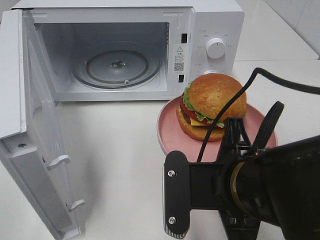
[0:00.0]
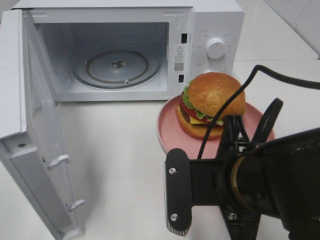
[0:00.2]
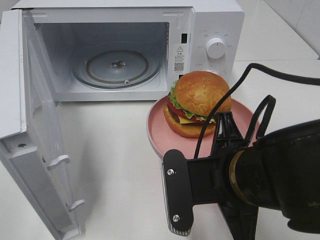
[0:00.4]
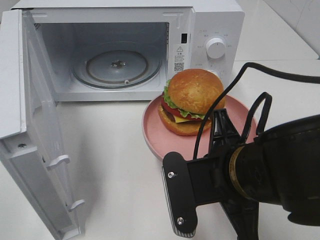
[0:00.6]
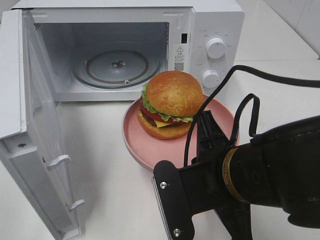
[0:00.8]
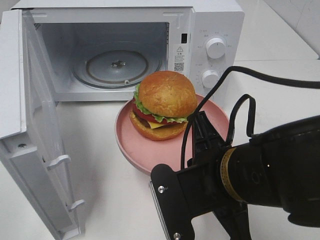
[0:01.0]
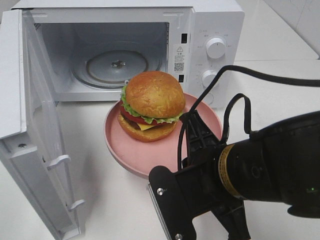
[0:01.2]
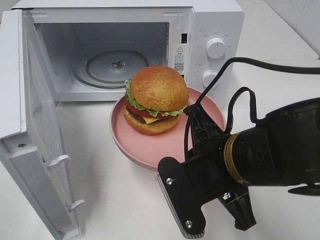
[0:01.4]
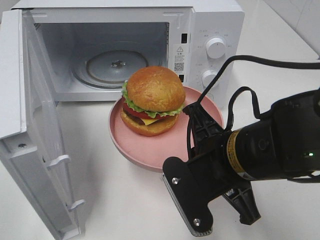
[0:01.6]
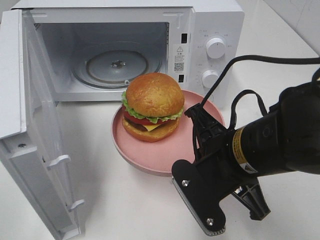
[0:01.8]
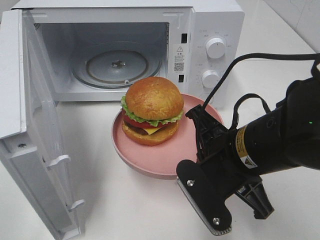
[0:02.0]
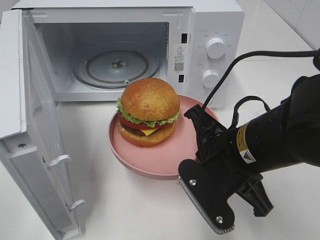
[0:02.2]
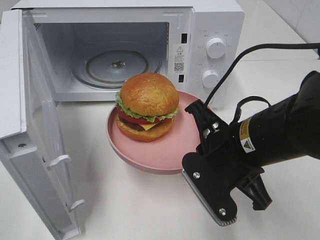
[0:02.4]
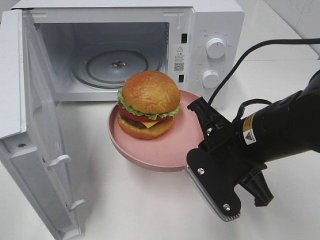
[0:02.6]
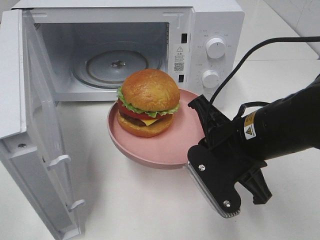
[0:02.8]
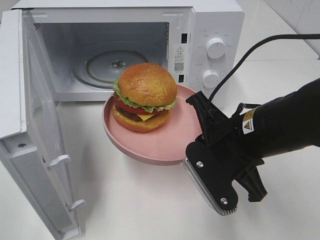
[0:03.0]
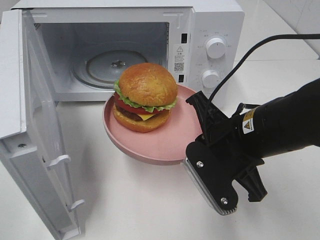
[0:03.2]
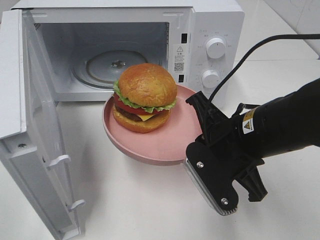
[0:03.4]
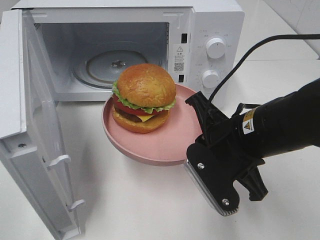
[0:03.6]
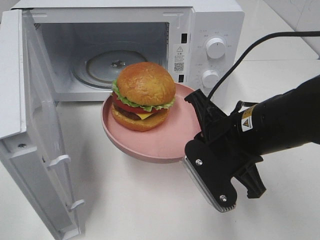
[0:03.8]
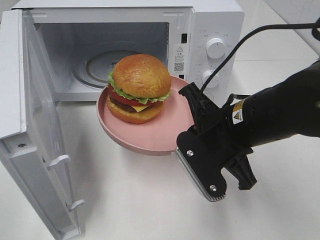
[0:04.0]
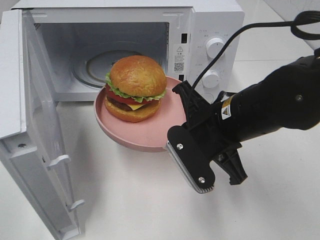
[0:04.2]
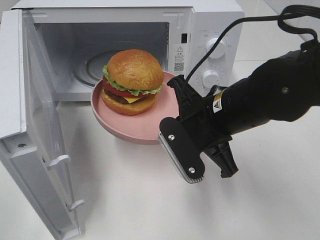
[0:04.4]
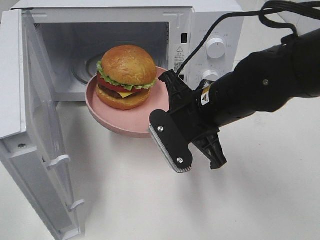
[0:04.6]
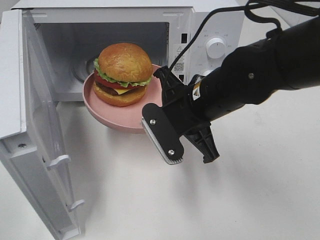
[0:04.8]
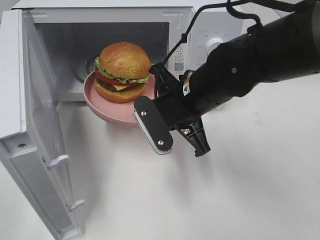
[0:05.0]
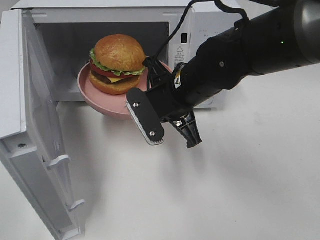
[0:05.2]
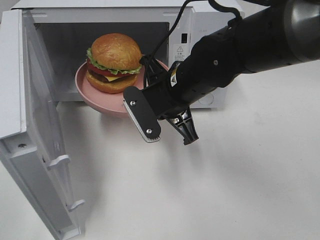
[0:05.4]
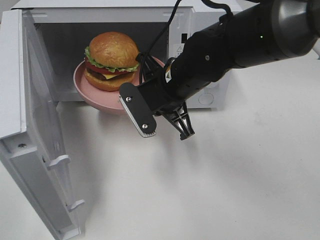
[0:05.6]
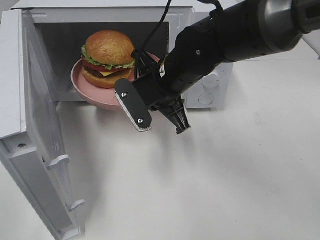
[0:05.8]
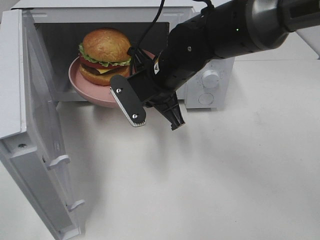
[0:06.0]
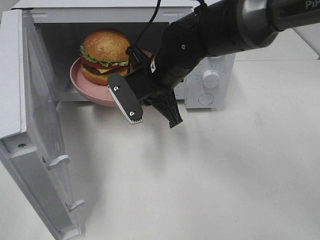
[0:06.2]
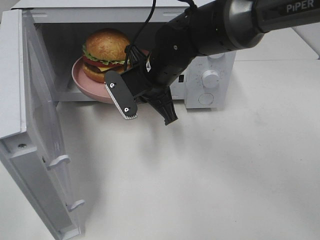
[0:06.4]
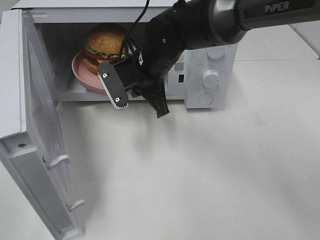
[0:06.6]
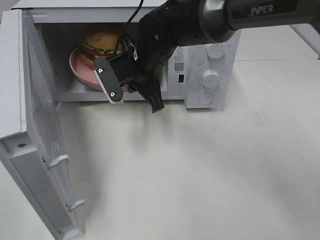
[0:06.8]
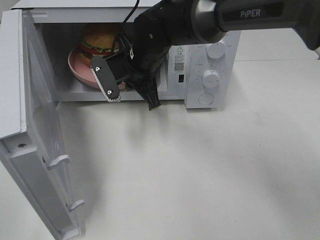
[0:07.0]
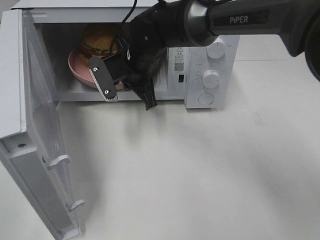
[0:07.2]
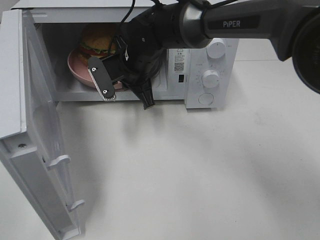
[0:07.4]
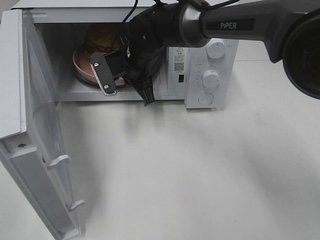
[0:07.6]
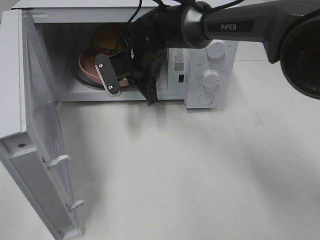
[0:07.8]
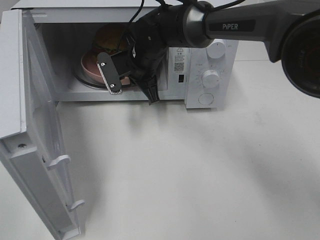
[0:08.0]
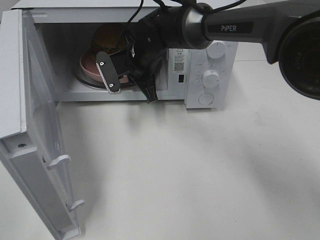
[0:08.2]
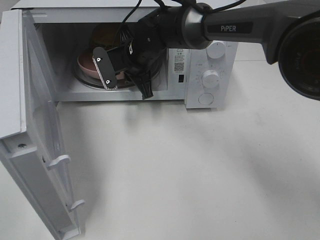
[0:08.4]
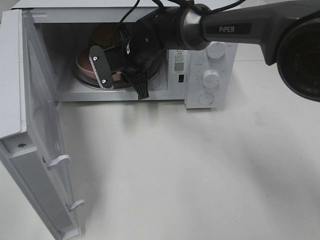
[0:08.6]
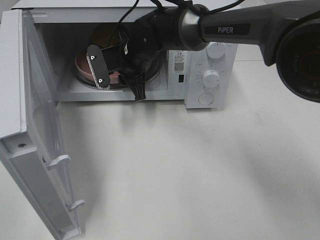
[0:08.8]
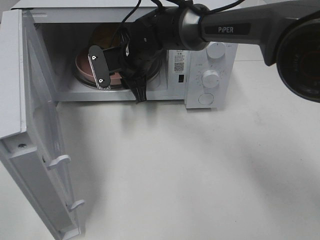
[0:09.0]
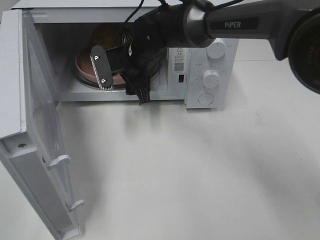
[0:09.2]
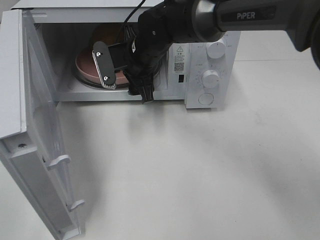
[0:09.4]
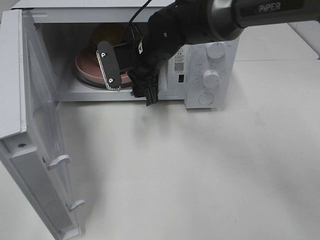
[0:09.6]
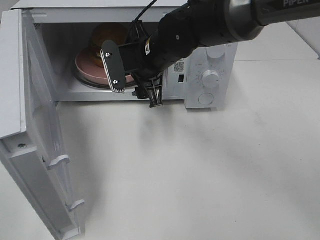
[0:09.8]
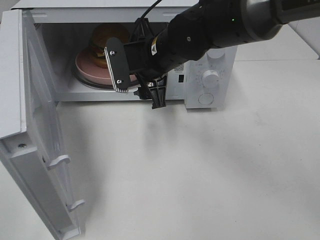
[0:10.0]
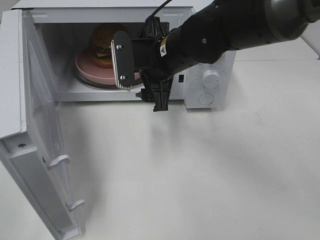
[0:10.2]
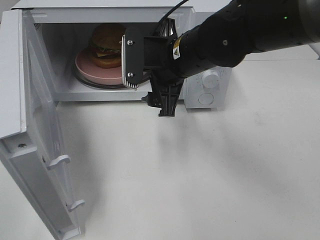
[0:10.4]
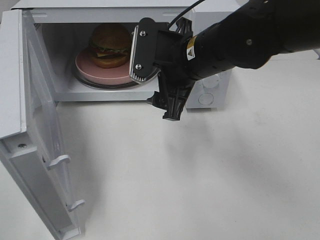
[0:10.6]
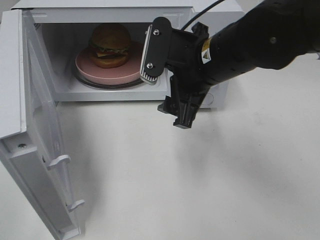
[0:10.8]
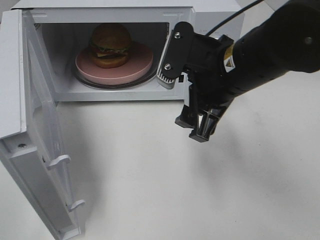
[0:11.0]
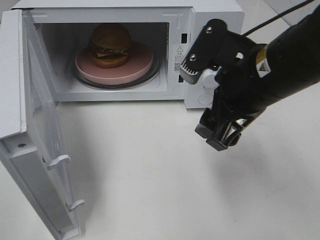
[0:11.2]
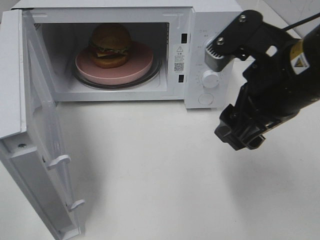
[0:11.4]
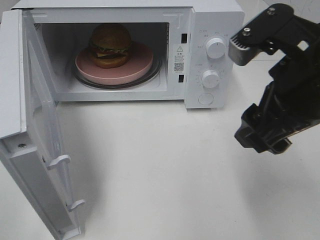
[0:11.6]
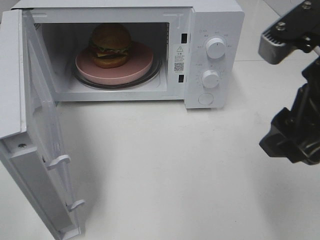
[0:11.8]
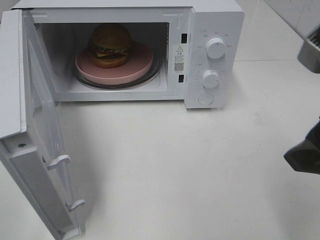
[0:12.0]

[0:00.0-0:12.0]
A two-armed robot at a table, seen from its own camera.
Task of the whole recording: Heat the burger.
Step, 0:00.0 to 0:08.8: Right hand: place the plate in the microwave.
0:01.6 to 0:03.0: The grippers stay close to where they were, moving slightly.
0:04.4 to 0:06.0: The right gripper heads forward and to the left, covering about 10 cm.
0:06.0 to 0:07.6: The right gripper shifts some 10 cm forward.
0:07.6 to 0:09.0: The right gripper opens.
0:09.0 to 0:10.4: The right gripper travels backward, to the right and upward by roughly 15 cm, and opens.
0:10.4 to 0:12.0: The right gripper heads backward, to the right and upward, covering roughly 25 cm.

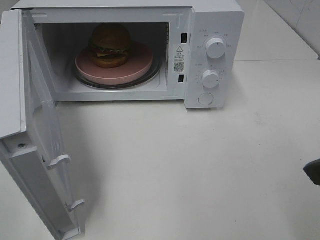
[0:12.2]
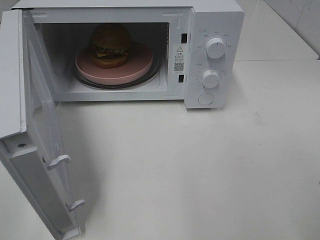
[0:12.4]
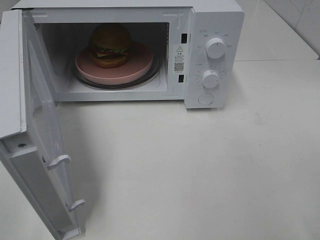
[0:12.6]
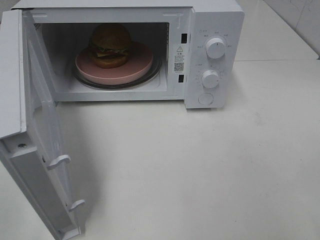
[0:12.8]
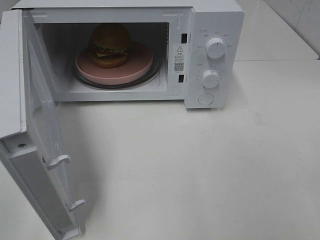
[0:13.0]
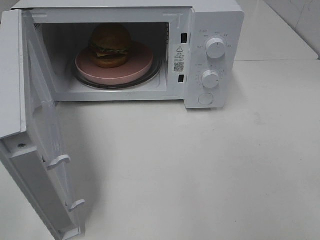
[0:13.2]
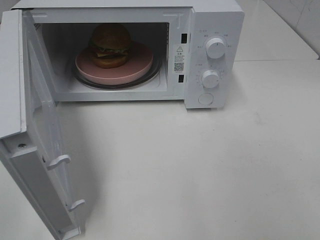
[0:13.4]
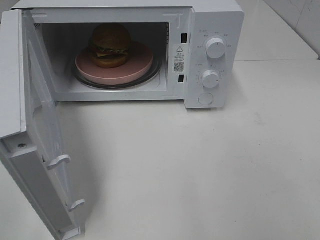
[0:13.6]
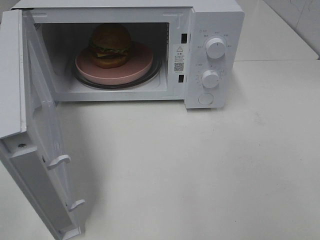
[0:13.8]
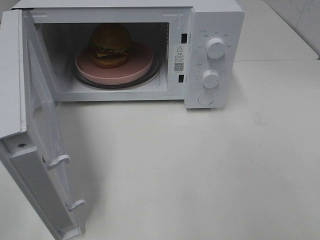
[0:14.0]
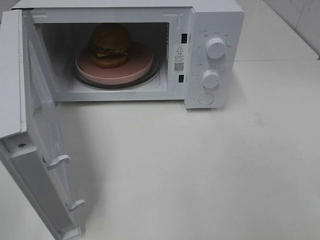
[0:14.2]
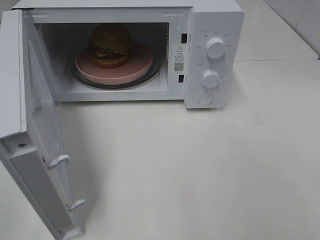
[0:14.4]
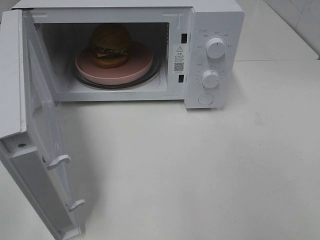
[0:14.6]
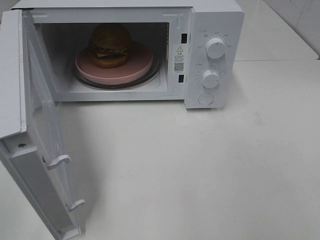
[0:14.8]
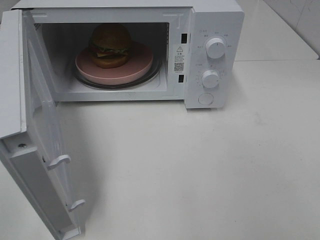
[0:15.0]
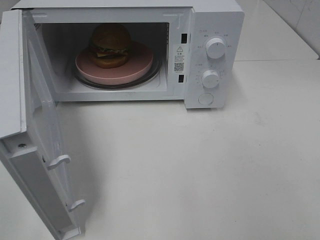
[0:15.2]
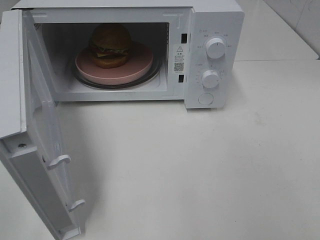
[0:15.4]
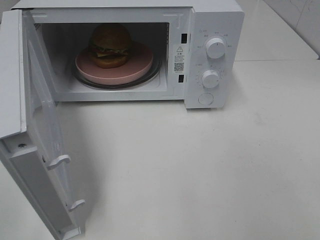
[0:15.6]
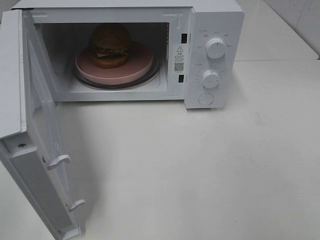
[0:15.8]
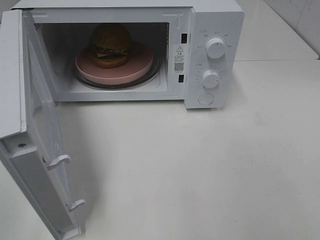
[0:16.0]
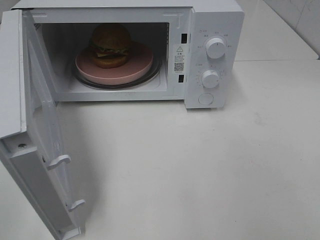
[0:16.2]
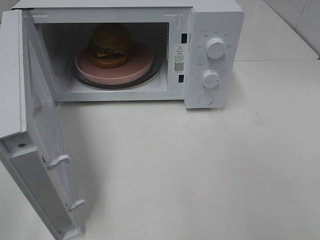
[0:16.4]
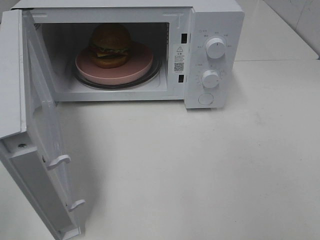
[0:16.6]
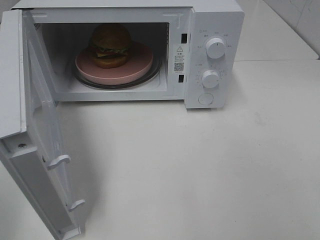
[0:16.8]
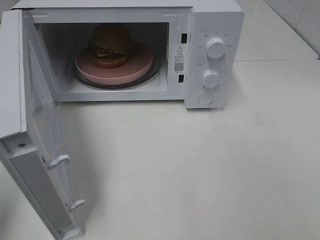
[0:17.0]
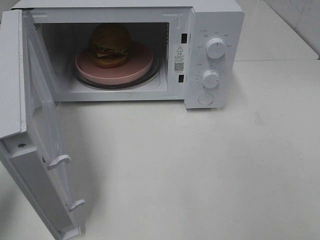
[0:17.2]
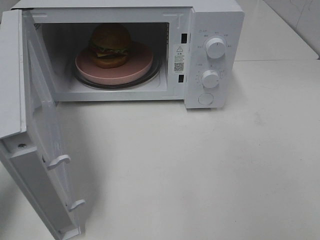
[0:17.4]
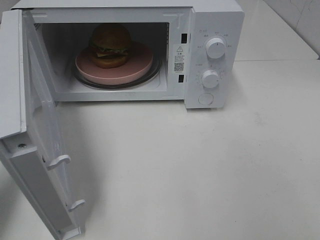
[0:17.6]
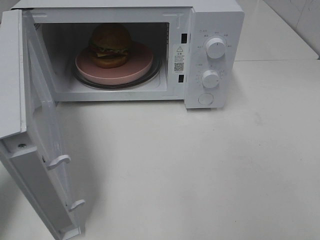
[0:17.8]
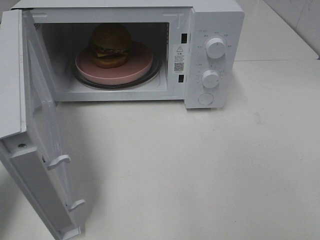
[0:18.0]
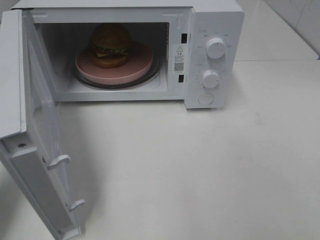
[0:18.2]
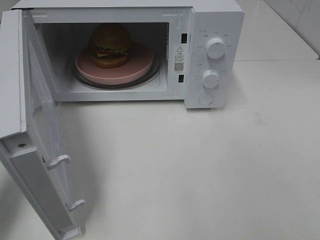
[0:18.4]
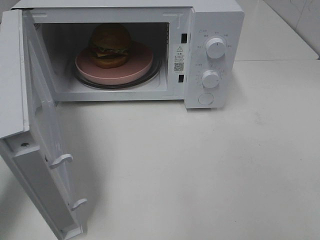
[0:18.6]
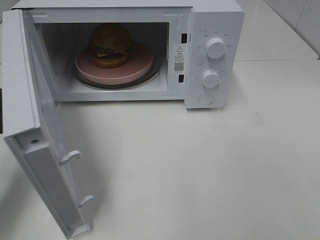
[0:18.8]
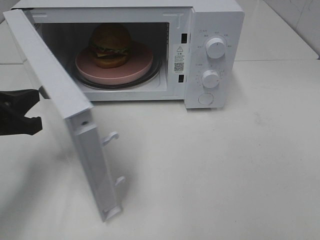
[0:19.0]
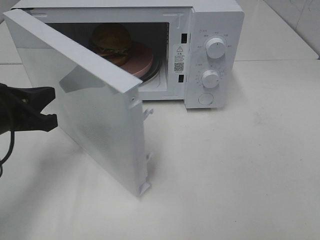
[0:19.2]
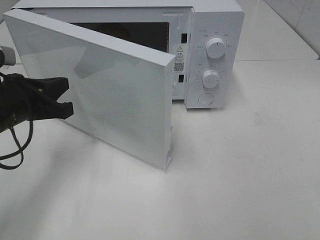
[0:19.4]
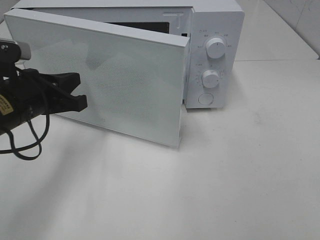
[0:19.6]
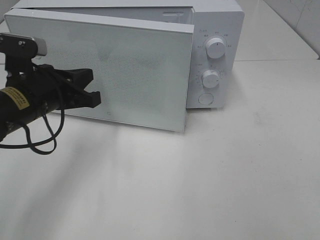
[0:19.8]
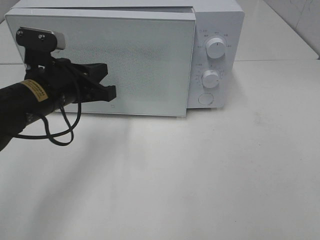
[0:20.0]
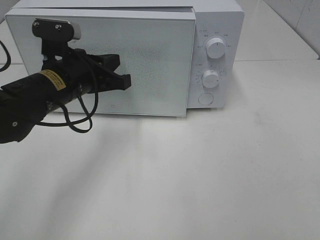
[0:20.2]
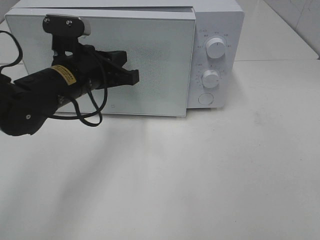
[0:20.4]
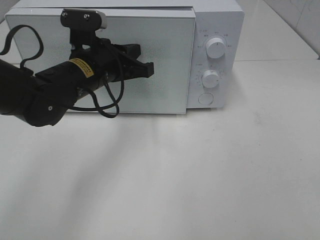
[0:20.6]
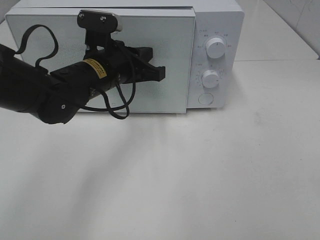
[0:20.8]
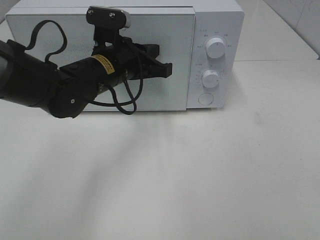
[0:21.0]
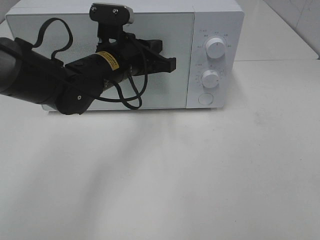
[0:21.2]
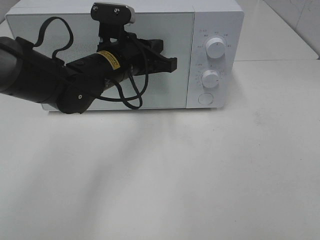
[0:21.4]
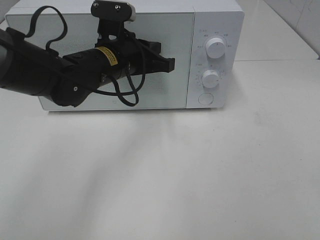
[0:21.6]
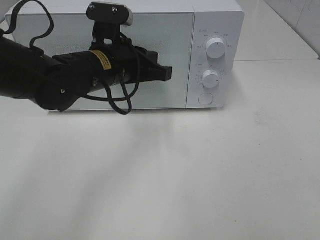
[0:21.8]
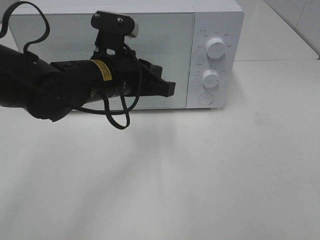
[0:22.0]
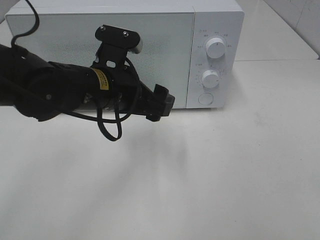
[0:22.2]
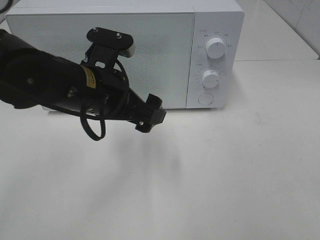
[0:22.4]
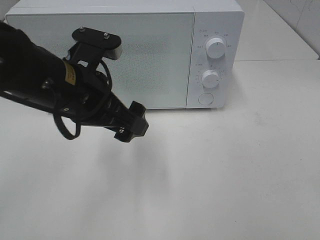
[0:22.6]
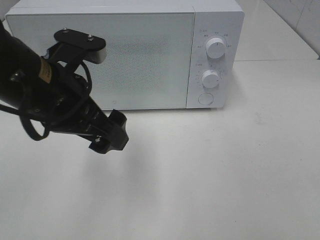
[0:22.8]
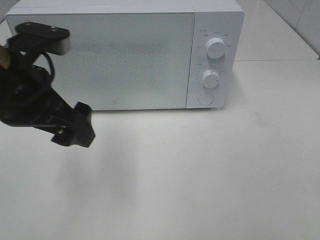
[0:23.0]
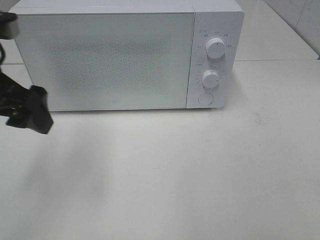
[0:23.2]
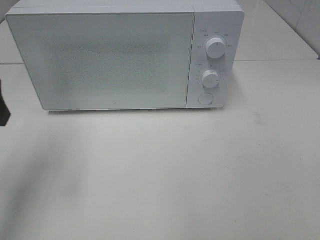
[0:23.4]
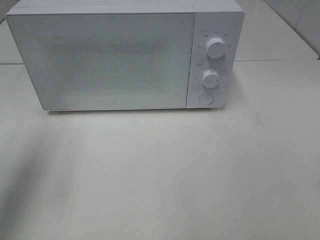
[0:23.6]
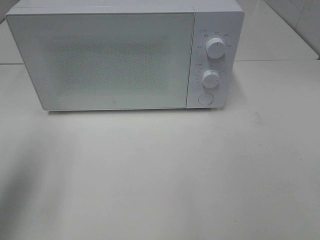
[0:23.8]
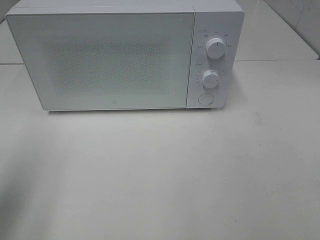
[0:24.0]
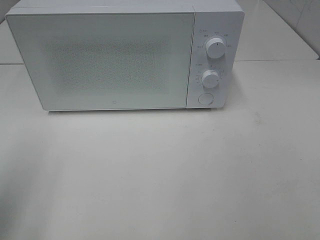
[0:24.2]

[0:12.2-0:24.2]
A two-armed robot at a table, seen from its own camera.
Task of the whole recording: Heat the burger.
Step, 0:12.2 to 0:21.6: Left hand: close the microwave door.
0:12.2 to 0:13.8: The right gripper heads backward and to the right, covering about 15 cm.
0:13.8 to 0:15.2: The two grippers keep their place.
0:16.6 to 0:18.2: The left gripper is displaced forward and downward by some 15 cm, and closes its fingers.
0:18.2 to 0:19.8: The left gripper is displaced to the right and forward by approximately 15 cm.
0:19.8 to 0:21.2: The left gripper shifts approximately 15 cm to the right and forward.
0:21.2 to 0:22.6: The left gripper is displaced backward by about 10 cm, and opens up.
0:22.6 to 0:24.2: The left gripper travels to the left and backward by some 25 cm.
